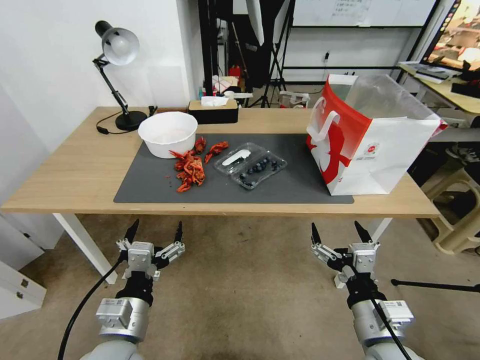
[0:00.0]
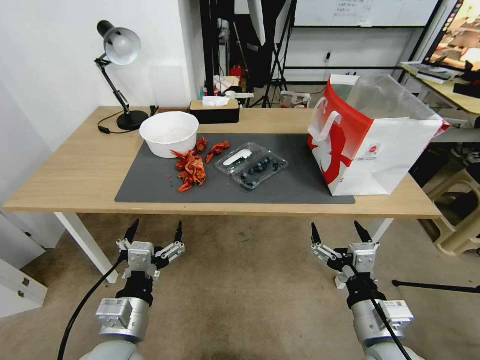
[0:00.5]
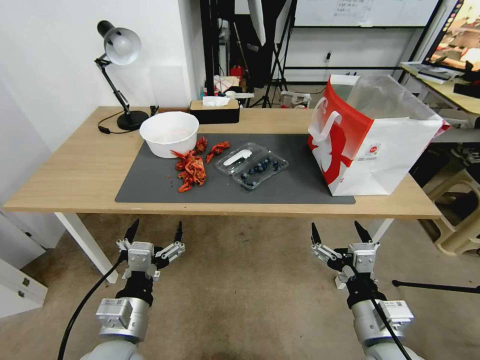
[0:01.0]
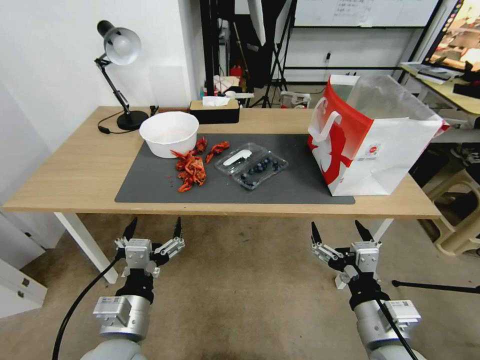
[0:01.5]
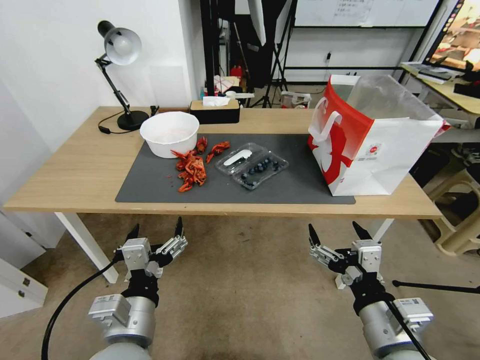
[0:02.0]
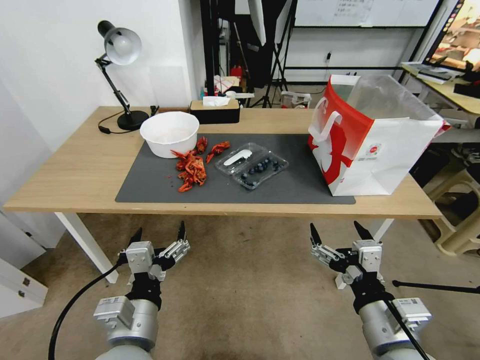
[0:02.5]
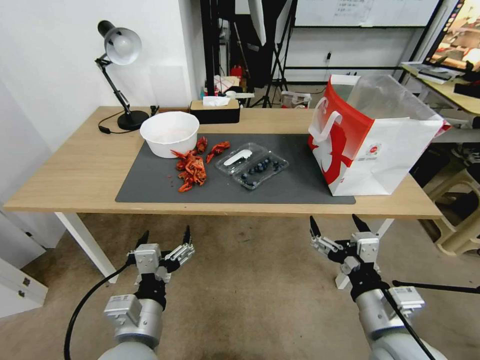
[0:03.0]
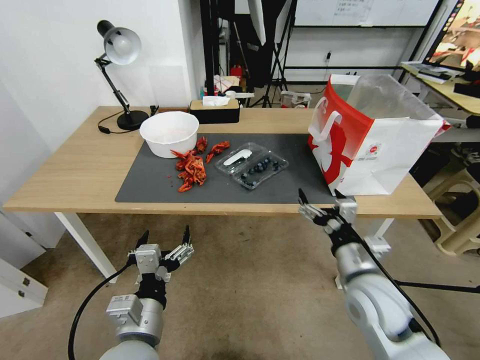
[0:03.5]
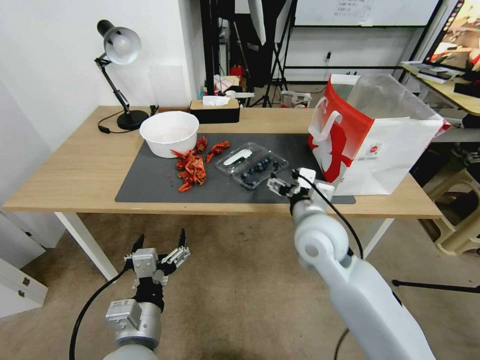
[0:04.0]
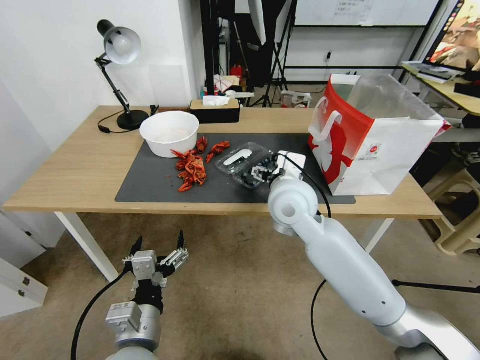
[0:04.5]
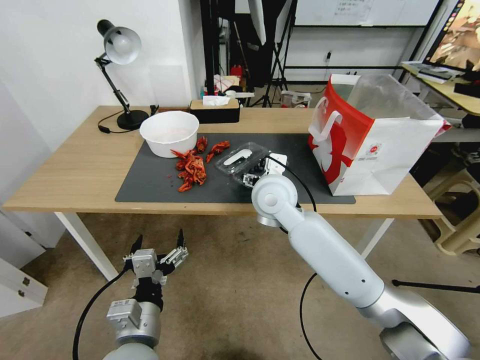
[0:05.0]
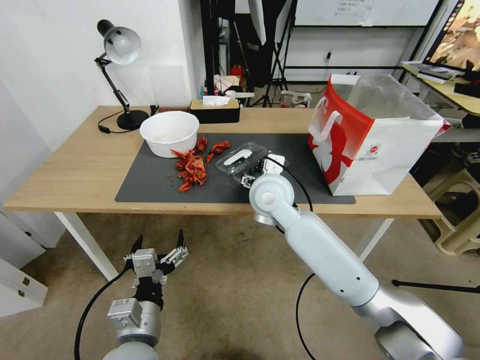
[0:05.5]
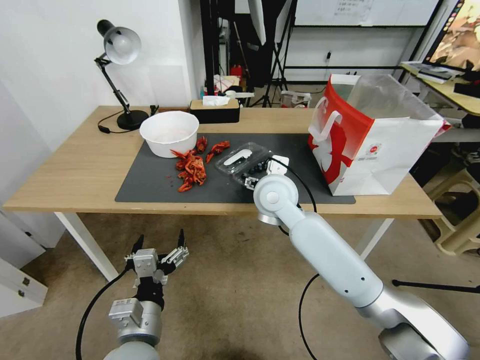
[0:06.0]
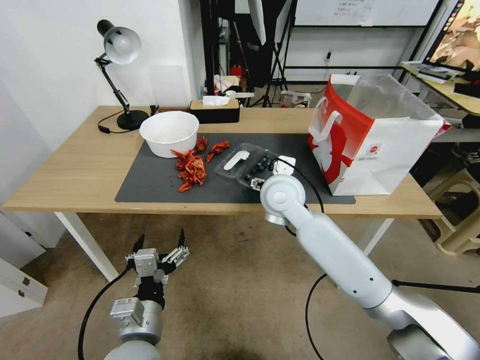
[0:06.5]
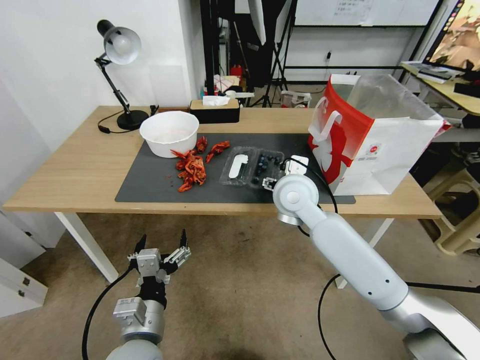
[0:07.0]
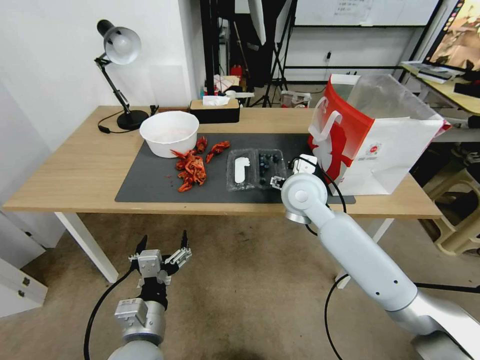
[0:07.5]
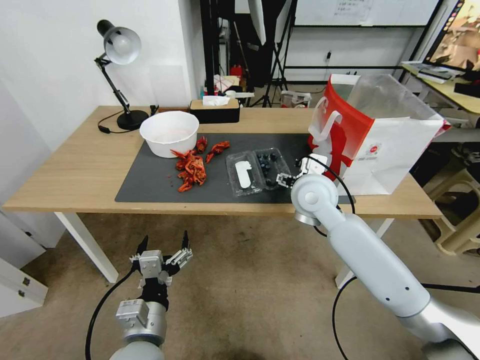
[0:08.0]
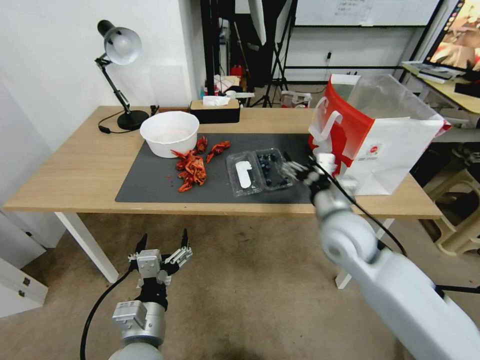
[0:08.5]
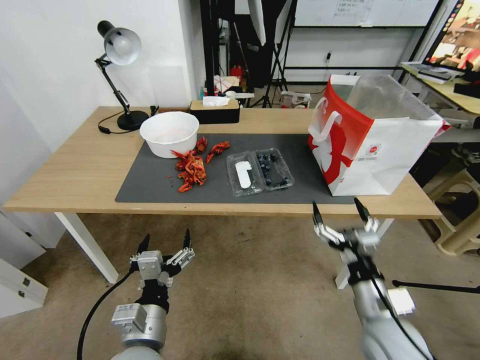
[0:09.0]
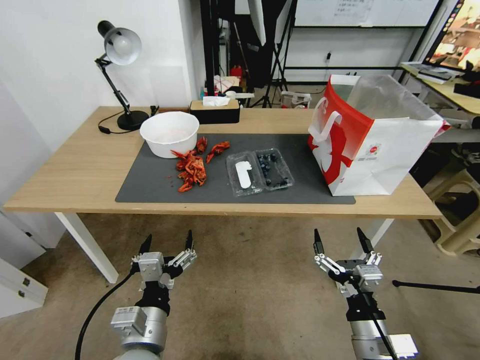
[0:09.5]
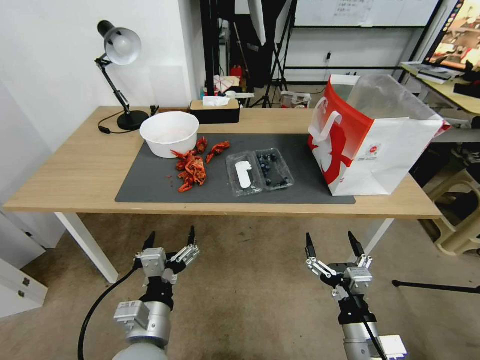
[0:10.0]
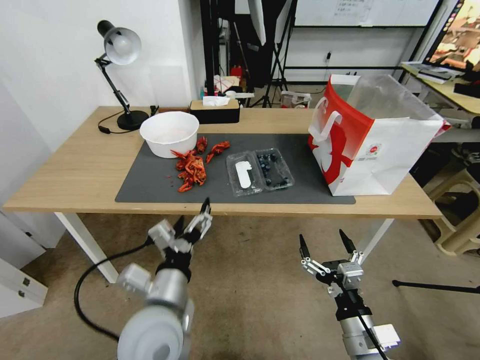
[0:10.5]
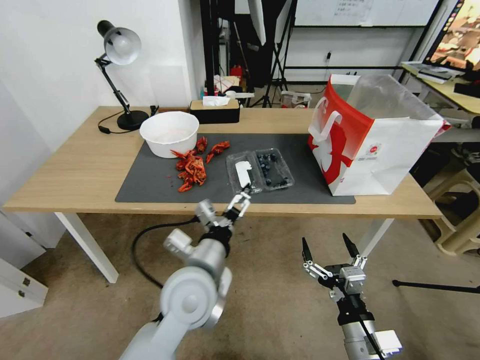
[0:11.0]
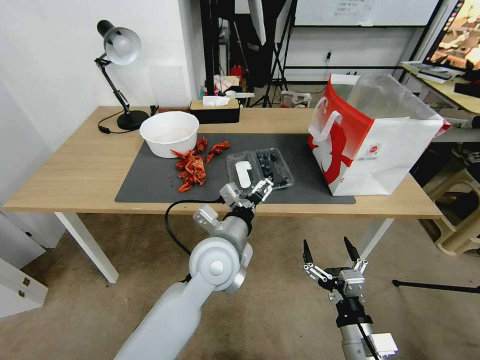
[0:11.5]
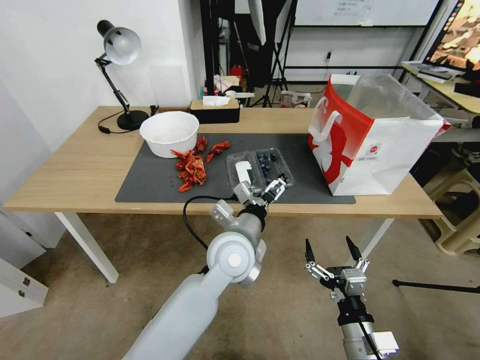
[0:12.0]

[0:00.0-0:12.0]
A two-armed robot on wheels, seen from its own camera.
Task of the whole recording: Close the takeout container lid, then place the container into the takeout bag.
0:02.0 to 0:04.0: The right gripper goes some 20 cm forward.
0:04.0 to 0:06.0: The right gripper shifts some 10 cm forward and to the left.
0:06.0 to 0:08.0: The right gripper shifts approximately 5 cm to the right.
0:08.0 to 0:10.0: The right gripper goes approximately 35 cm backward and downward.
0:10.0 to 0:12.0: The left gripper goes roughly 25 cm forward and to the right.

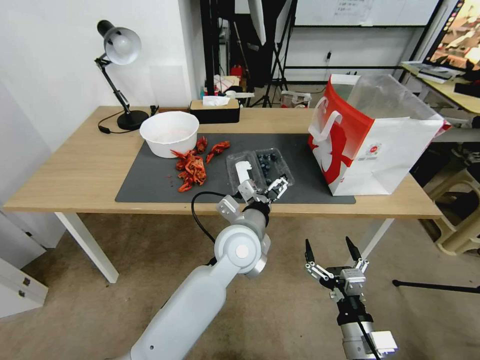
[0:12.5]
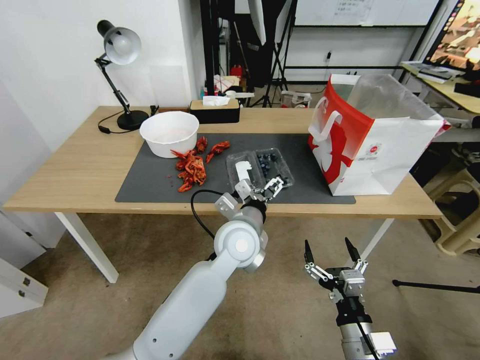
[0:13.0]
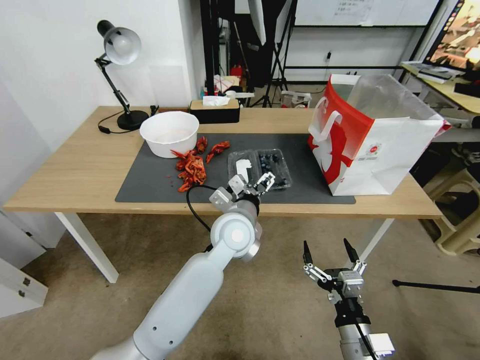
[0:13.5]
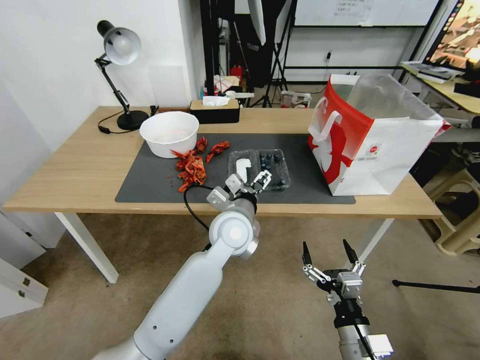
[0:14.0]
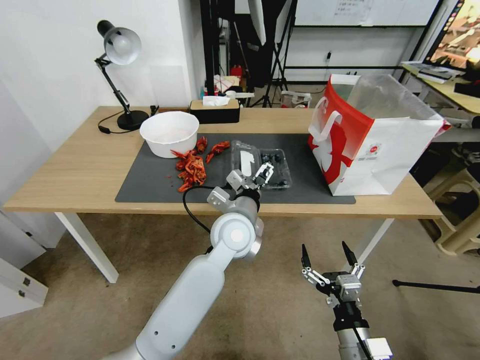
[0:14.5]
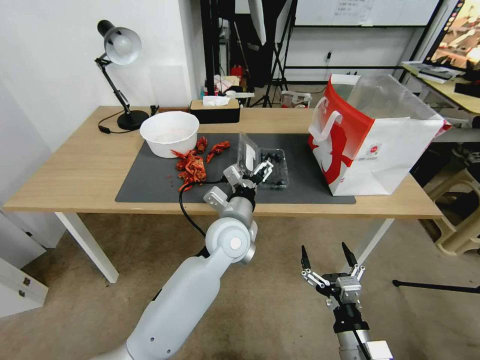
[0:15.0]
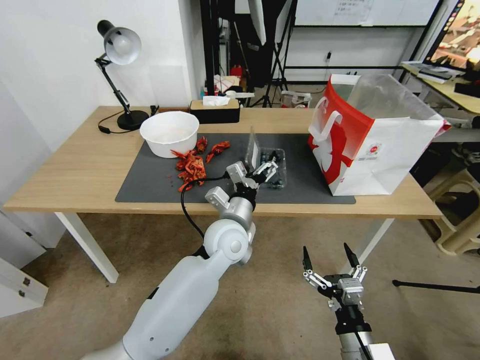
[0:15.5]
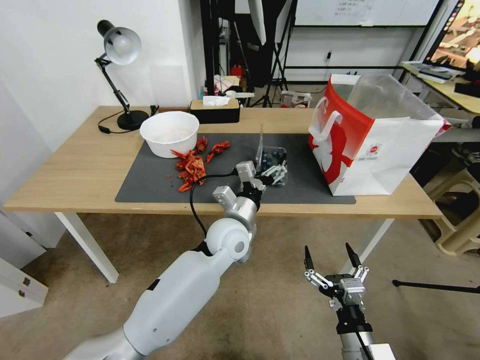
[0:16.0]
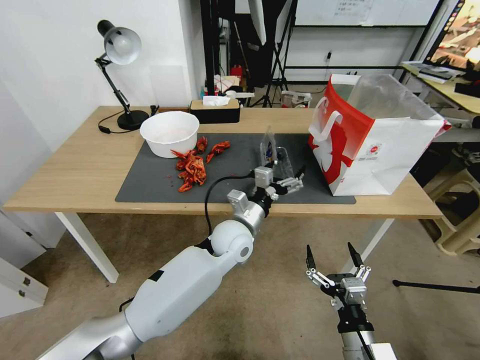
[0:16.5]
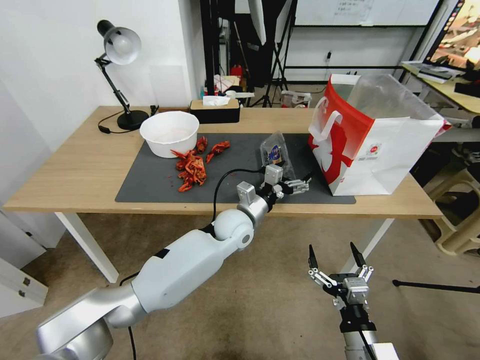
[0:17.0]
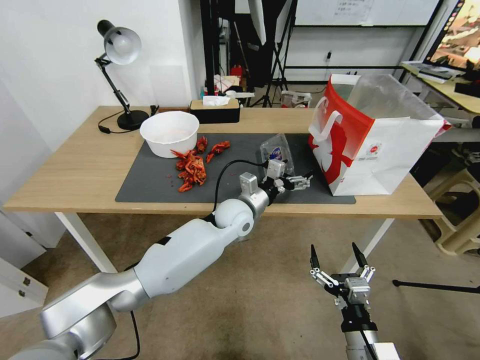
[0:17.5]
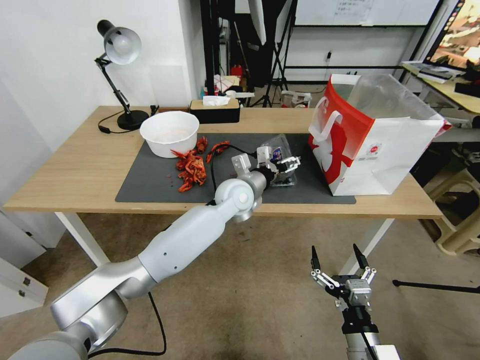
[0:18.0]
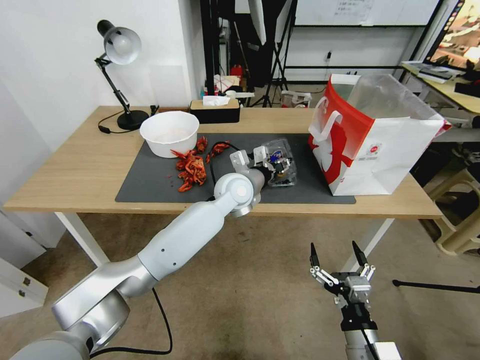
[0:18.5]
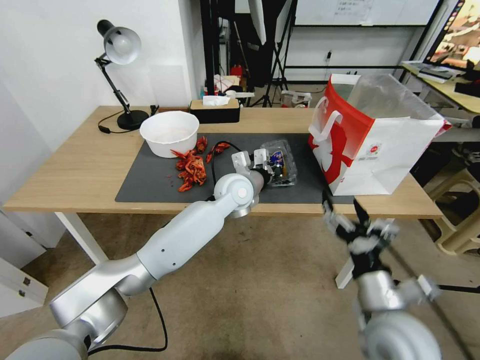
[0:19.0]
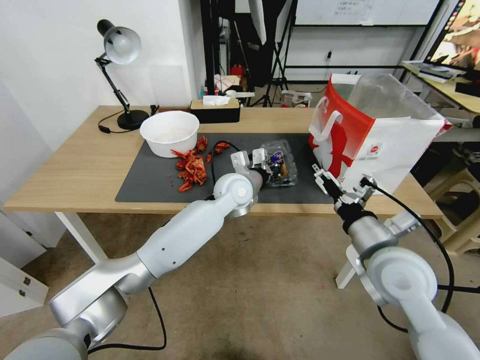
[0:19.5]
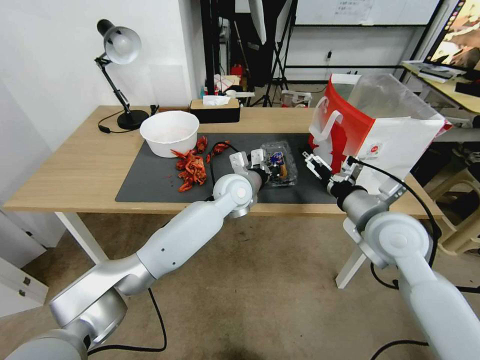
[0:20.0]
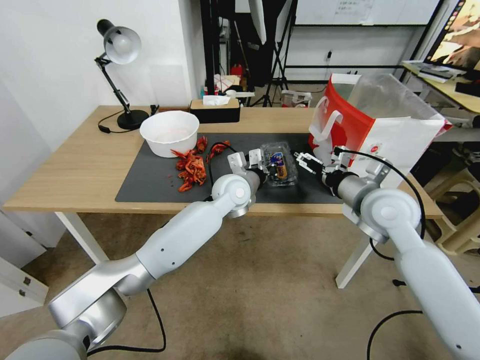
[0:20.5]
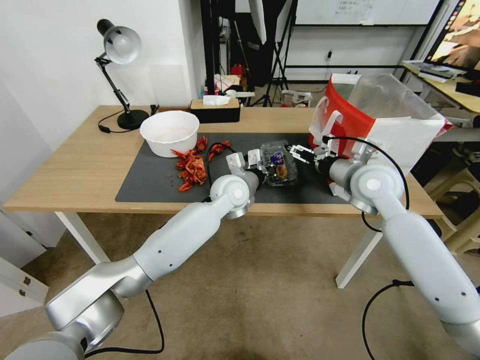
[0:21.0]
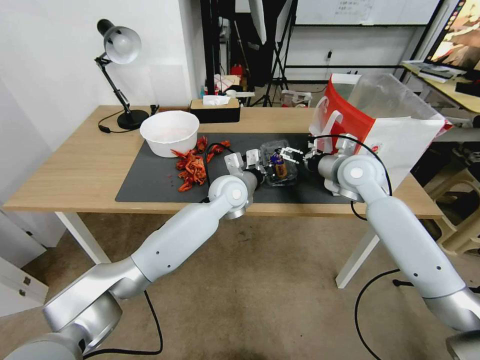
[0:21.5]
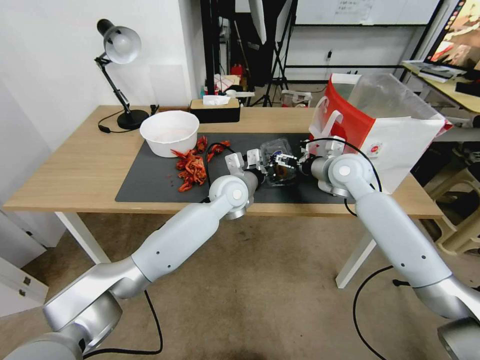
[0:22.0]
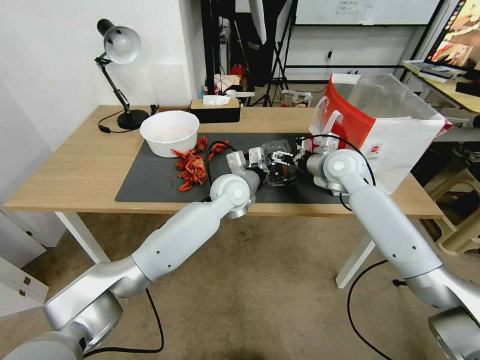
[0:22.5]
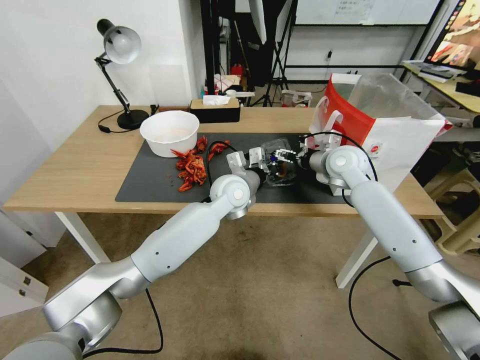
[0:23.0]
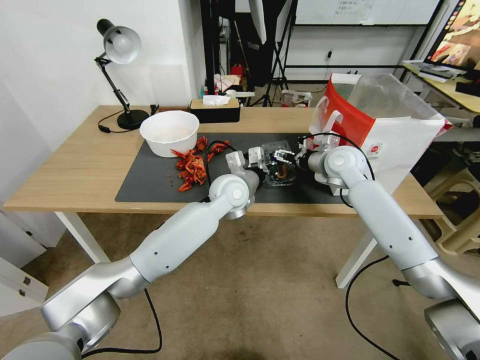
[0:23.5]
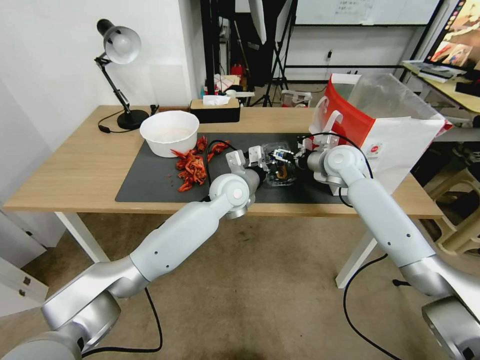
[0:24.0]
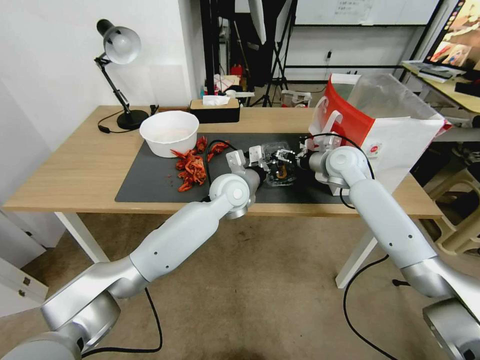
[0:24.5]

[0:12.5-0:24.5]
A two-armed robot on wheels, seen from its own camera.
Task of the whole recording: Close the takeout container lid, then place the container into the takeout bag.
0:12.5 to 0:14.5: There are only small adjustments of the grippers.
0:14.5 to 0:16.5: The left gripper is displaced downward by roughly 5 cm.
0:16.5 to 0:18.5: The left gripper heads forward and upward, covering some 10 cm, and closes up.
0:18.5 to 0:20.5: The right gripper moves forward and upward, about 35 cm; the left gripper closes.
0:20.5 to 0:22.5: The right gripper goes roughly 15 cm forward.
0:22.5 to 0:24.5: The grippers make only small movements.

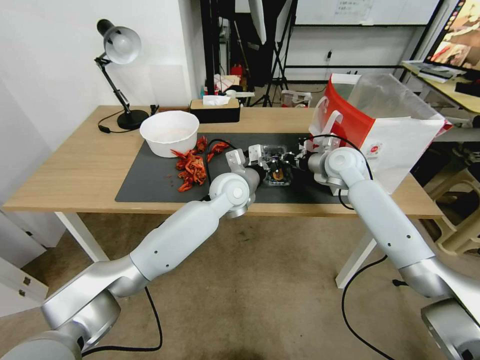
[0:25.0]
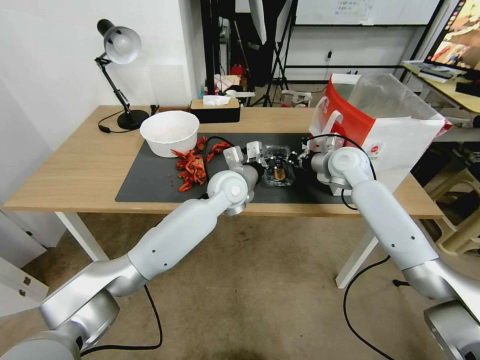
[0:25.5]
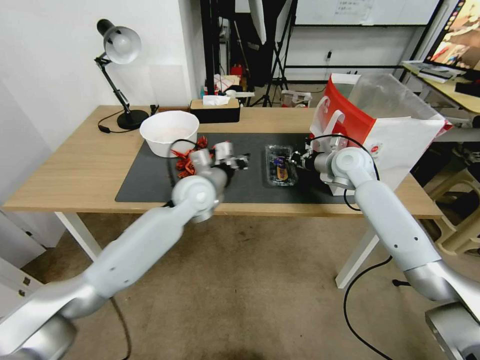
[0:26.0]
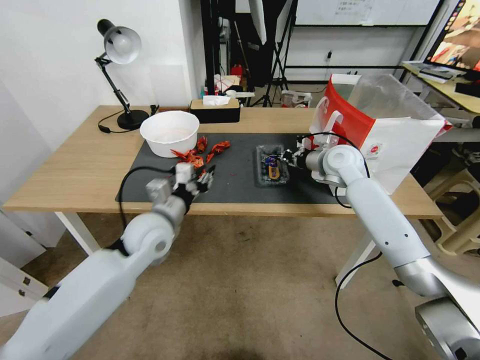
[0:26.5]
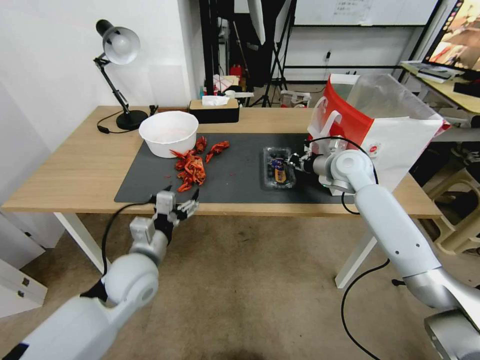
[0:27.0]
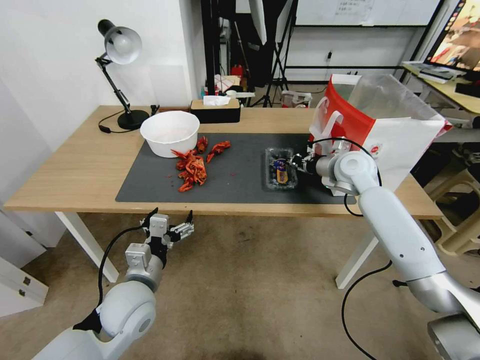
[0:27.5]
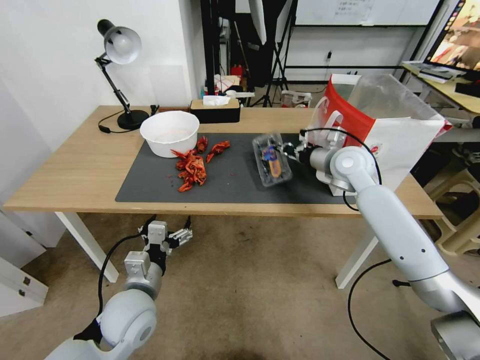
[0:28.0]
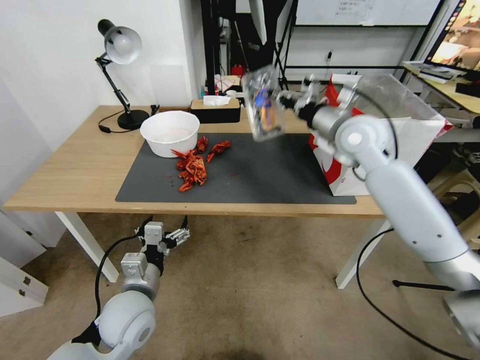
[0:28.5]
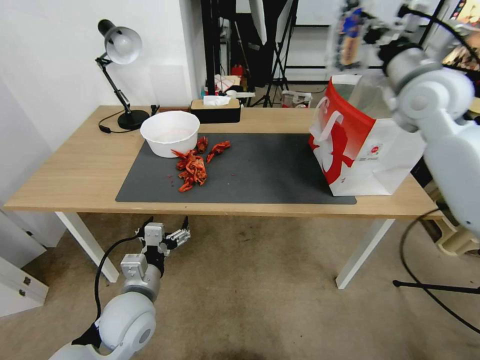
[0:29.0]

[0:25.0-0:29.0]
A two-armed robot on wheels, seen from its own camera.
Task of the whole recording: Close the takeout container lid, then place the container into the takeout bag.
0:25.0 to 0:27.0: The left gripper moves to the left and backward, some 25 cm, and opens its fingers.
0:27.0 to 0:29.0: The left gripper is displaced backward by approximately 5 cm. Meanwhile the right gripper goes approximately 20 cm upward.
